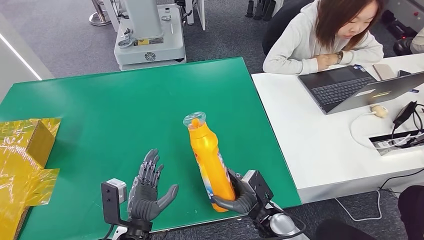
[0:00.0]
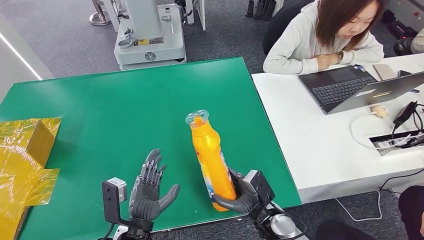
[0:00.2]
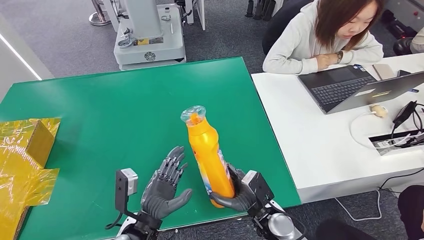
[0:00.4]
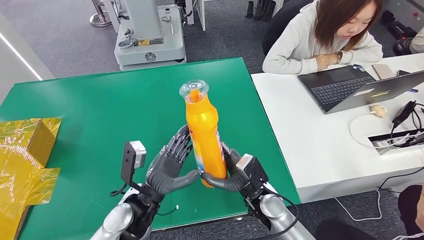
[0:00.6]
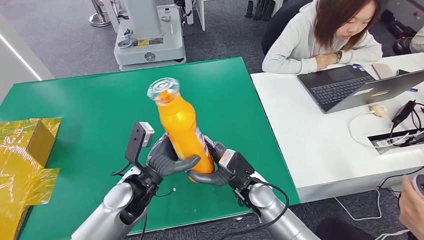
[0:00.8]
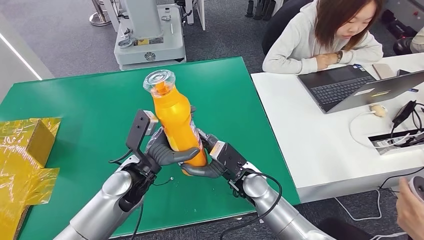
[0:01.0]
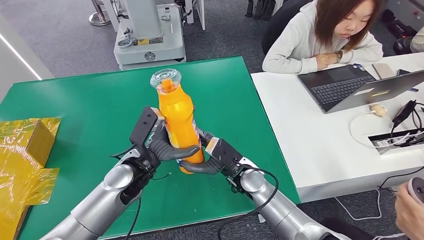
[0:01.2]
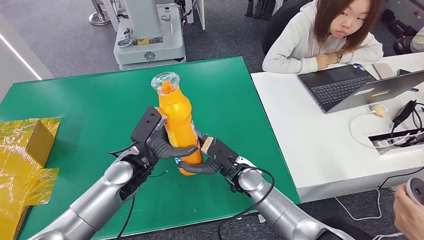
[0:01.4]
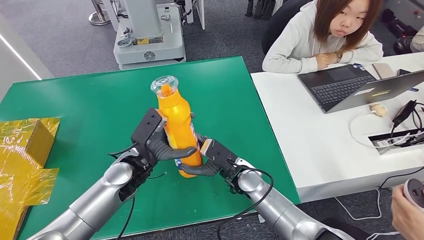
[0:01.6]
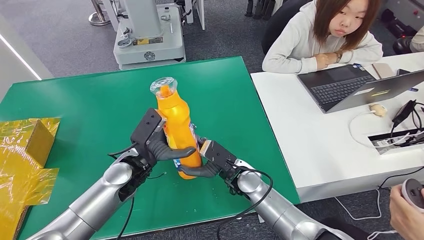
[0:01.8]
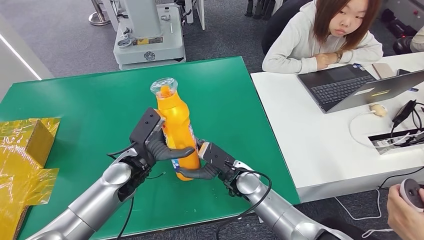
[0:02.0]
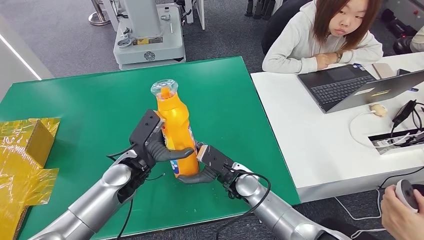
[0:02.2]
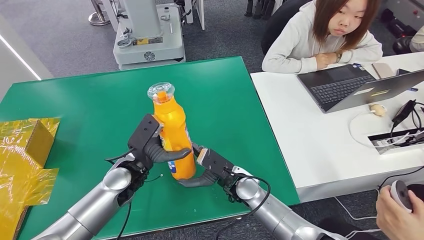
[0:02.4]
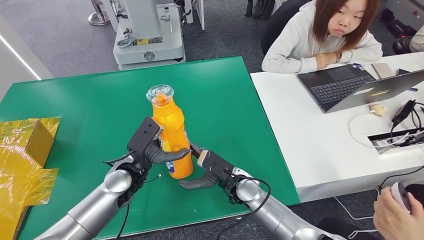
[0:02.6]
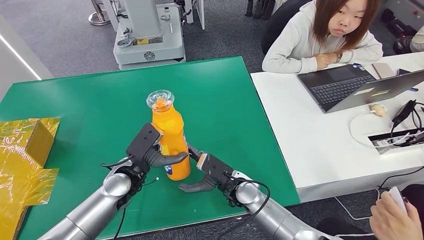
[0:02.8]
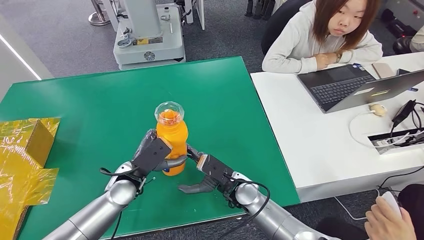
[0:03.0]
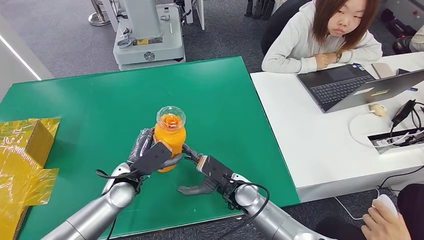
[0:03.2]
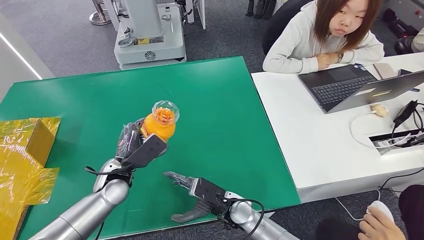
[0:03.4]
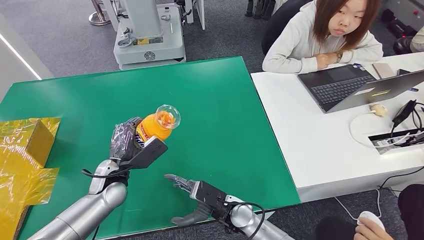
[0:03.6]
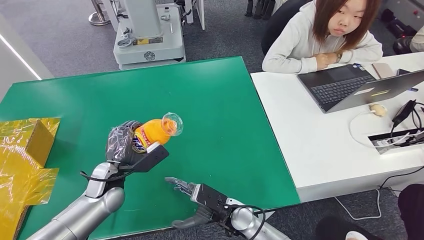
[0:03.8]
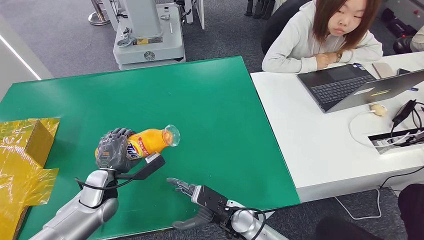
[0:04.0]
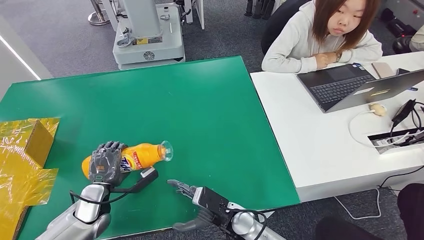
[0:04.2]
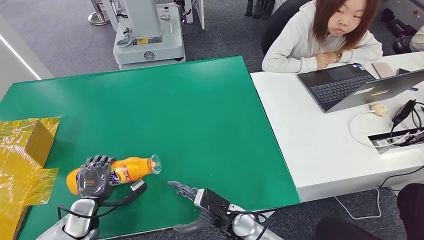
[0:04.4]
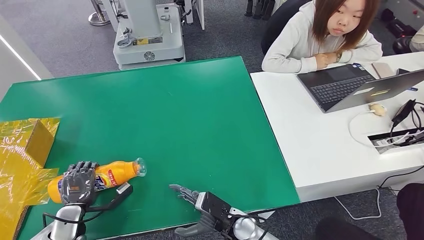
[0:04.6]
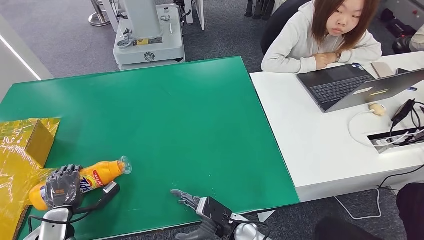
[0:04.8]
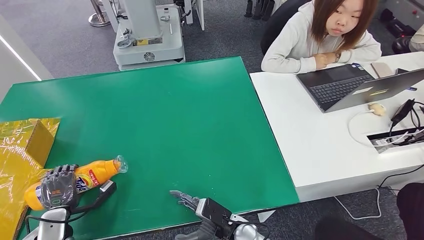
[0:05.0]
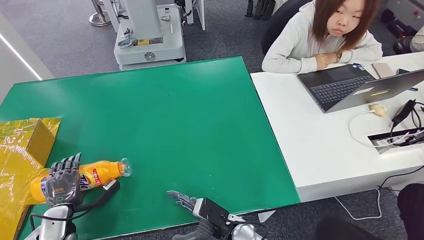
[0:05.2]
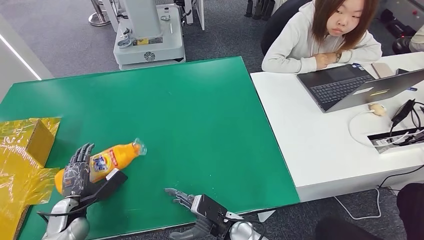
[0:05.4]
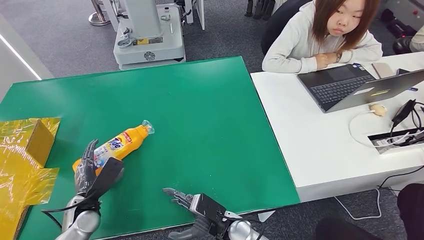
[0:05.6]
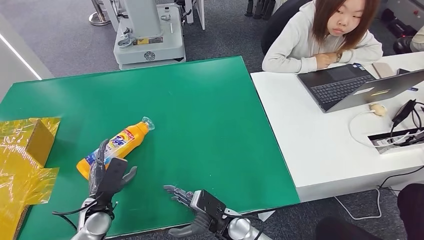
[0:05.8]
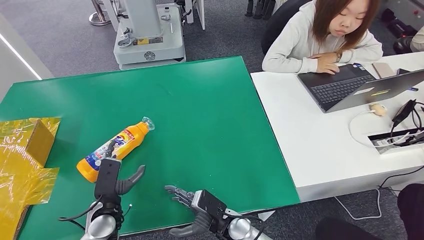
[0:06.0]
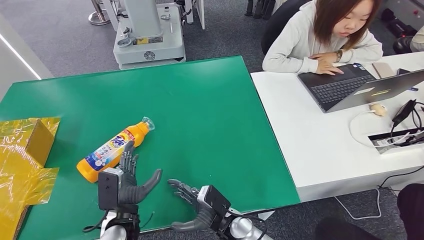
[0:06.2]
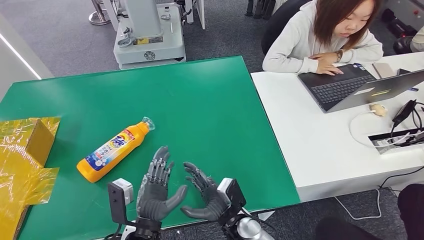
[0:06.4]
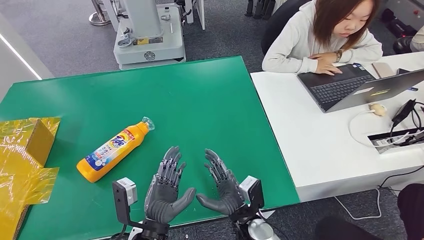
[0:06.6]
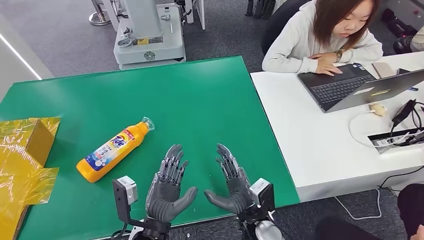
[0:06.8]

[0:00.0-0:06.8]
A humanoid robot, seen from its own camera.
Step, 0:01.4 to 0:06.6: Turn the bottle to the front side.
0:01.4 to 0:02.8: The hands stay close to where they were, moving slightly.
0:02.8 to 0:04.0: The left hand goes roughly 5 cm to the left, while the right hand goes approximately 5 cm backward.
0:04.0 to 0:05.4: The left hand heads to the left, backward and downward, covering approximately 15 cm.
0:05.4 to 0:06.8: The right hand shifts by about 5 cm. The left hand heads to the right, covering about 20 cm.
